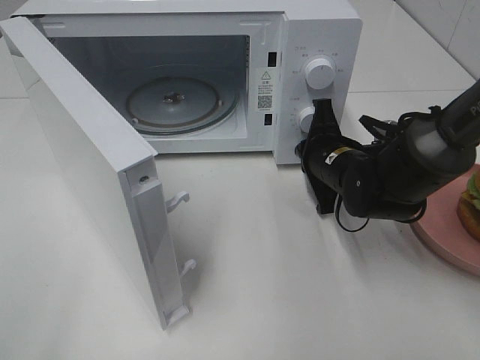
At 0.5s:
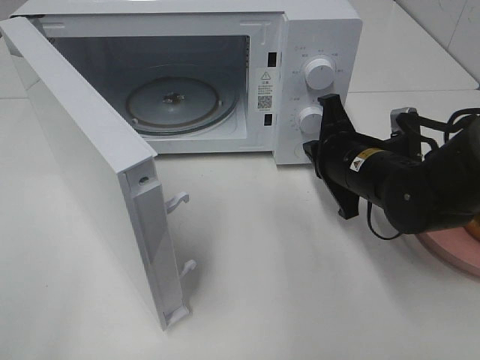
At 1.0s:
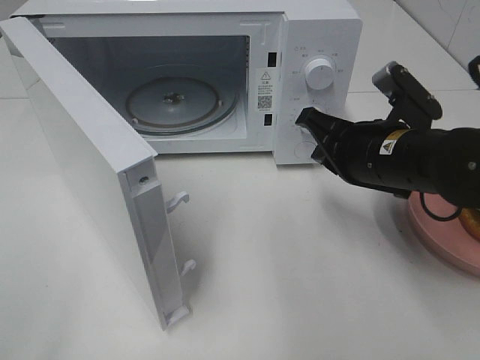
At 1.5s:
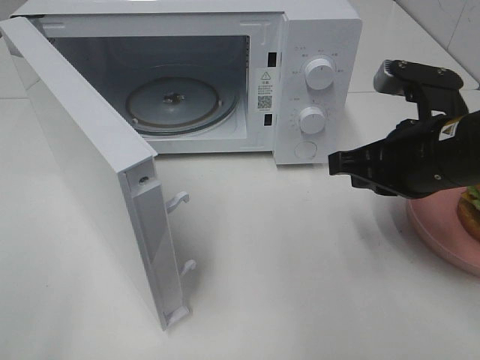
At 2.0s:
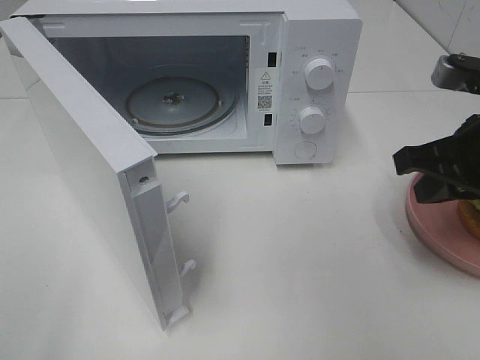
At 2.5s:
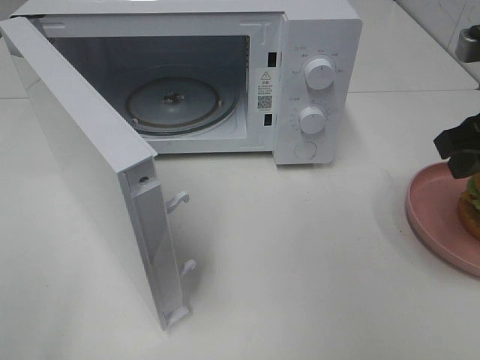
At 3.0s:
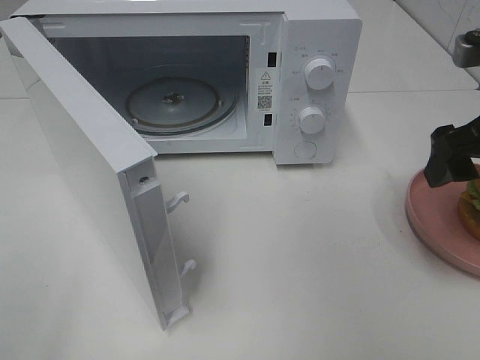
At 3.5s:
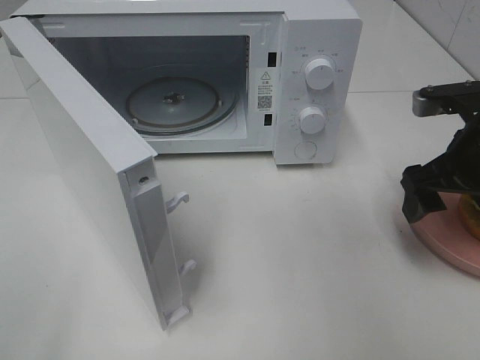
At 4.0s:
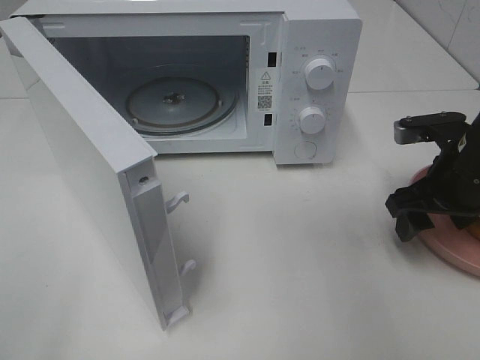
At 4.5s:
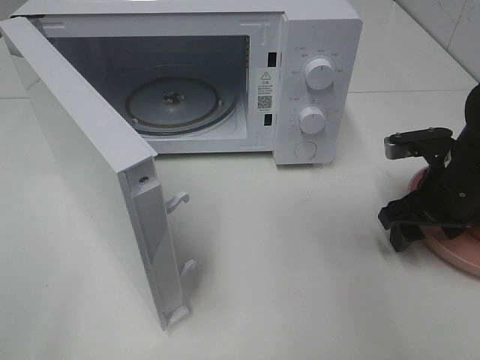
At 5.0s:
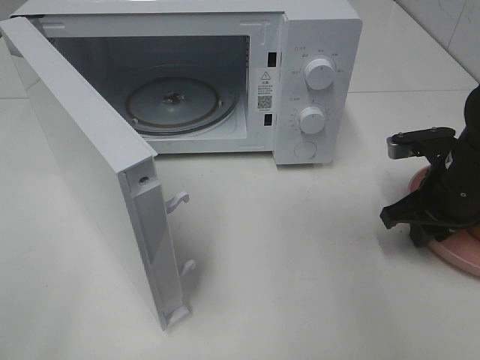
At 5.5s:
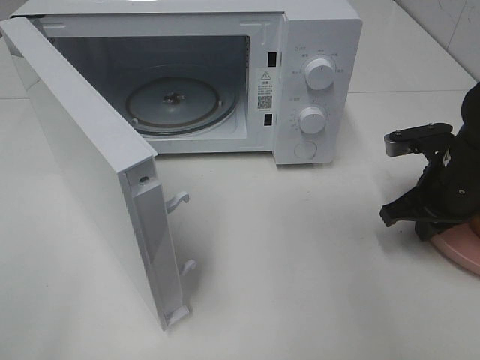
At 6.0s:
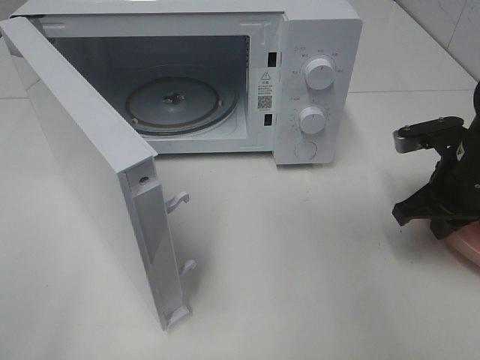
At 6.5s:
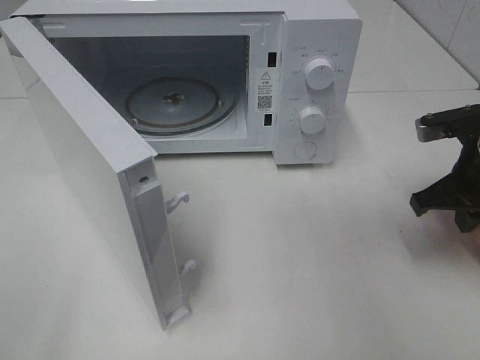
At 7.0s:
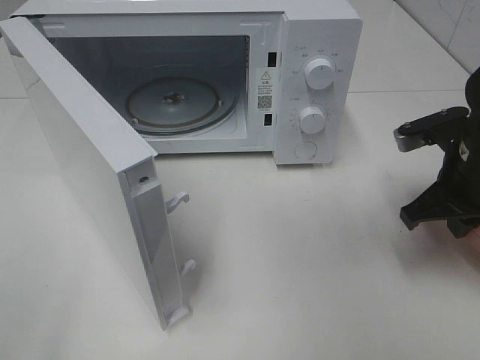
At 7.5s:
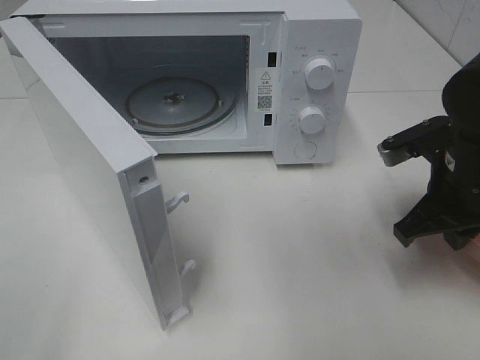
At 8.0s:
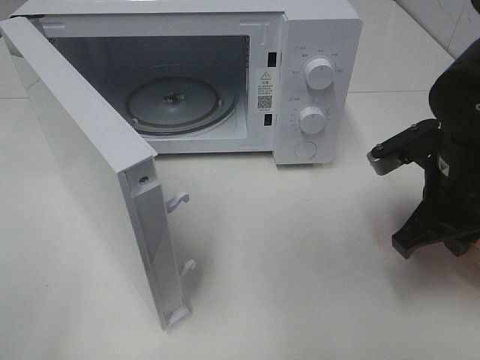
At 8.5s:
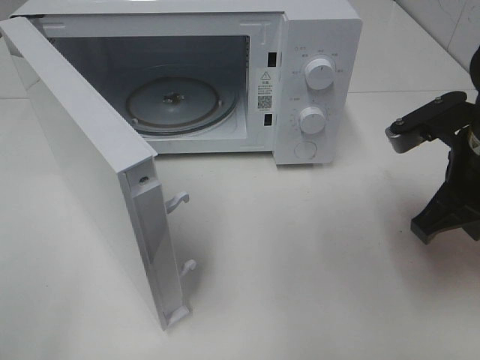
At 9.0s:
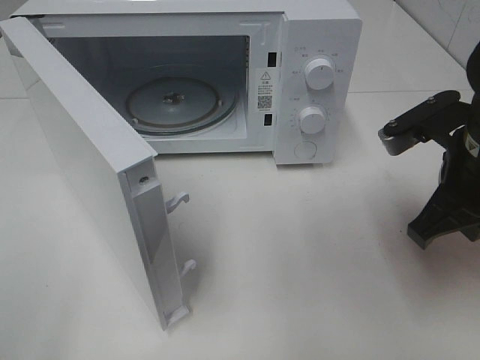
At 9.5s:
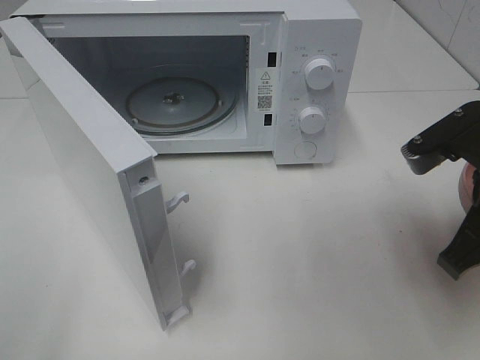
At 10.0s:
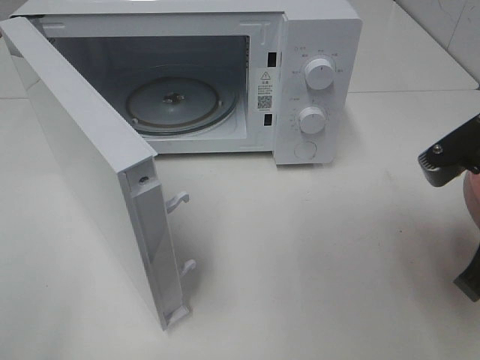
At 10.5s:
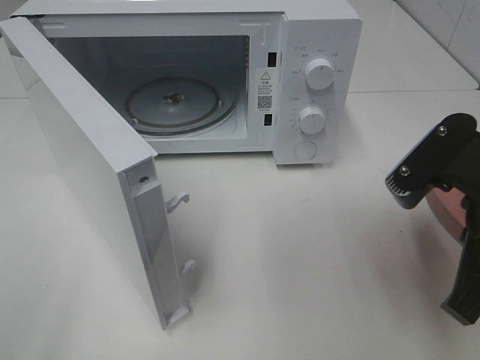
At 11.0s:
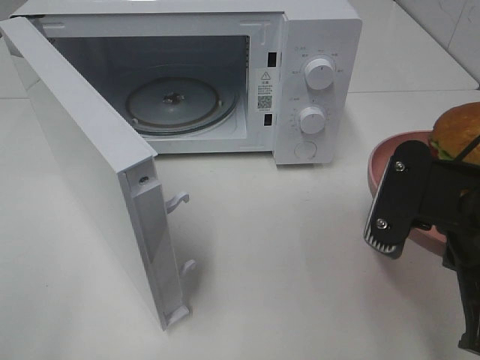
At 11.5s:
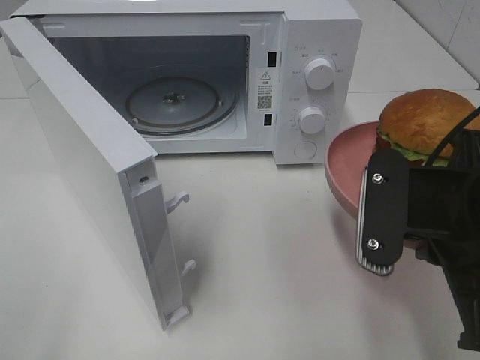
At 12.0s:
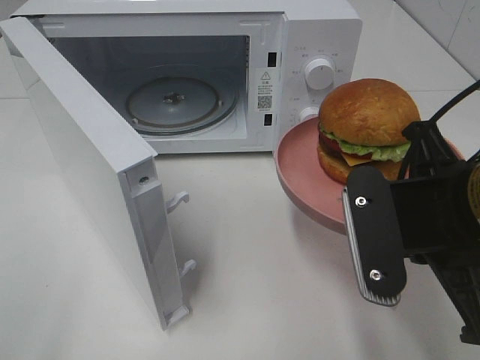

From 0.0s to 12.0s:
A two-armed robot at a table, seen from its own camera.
Task of the whole recording: Heat the burger.
Step, from 0.5s to 5.0s: Right hand: grab the plate with the hamburger.
From 0.0s to 2.0s: The right gripper is displaced upward, backward and to the right by roughly 20 cm.
From 2.0s to 4.0s: The right gripper shifts about 10 cm downward and forward, and opens up.
From 4.0s to 6.0s: The right gripper closes.
From 6.0s to 8.0s: The right gripper is displaced to the left by roughly 5 cm.
From 8.0s to 10.0s: The right gripper travels backward and upward by some 10 cm.
From 10.0s to 12.0s: The right gripper travels to the left by about 5 cm.

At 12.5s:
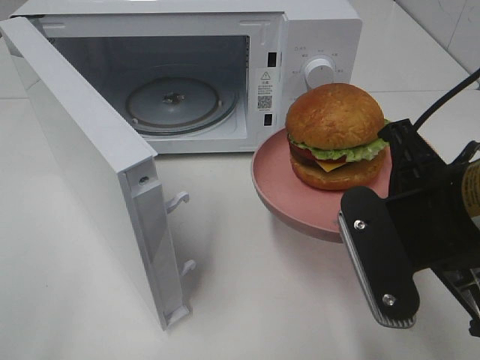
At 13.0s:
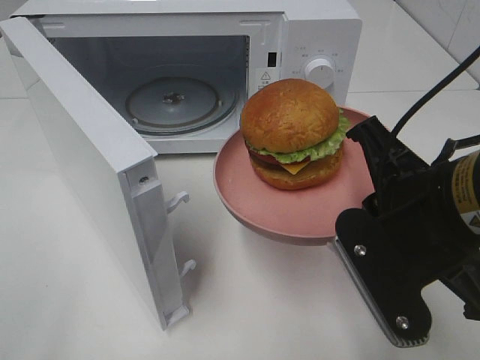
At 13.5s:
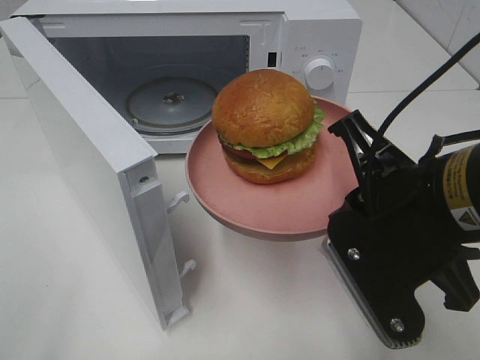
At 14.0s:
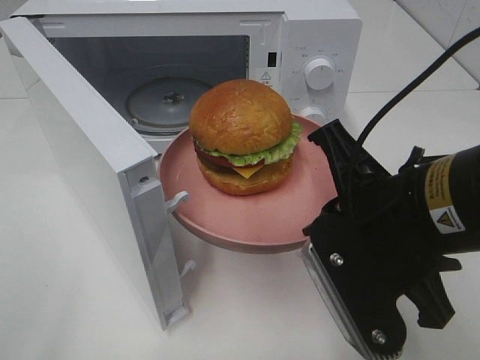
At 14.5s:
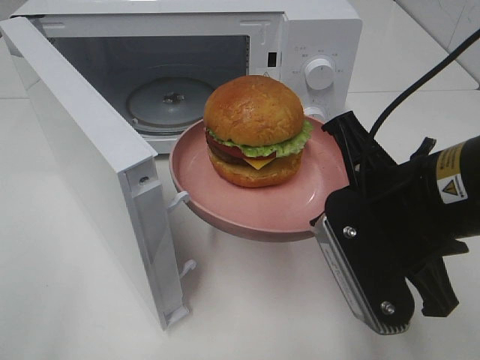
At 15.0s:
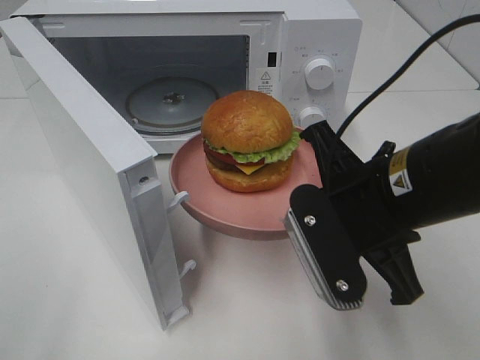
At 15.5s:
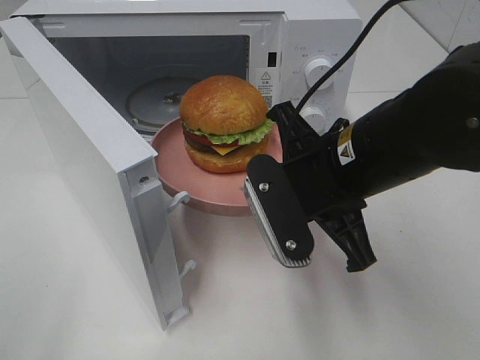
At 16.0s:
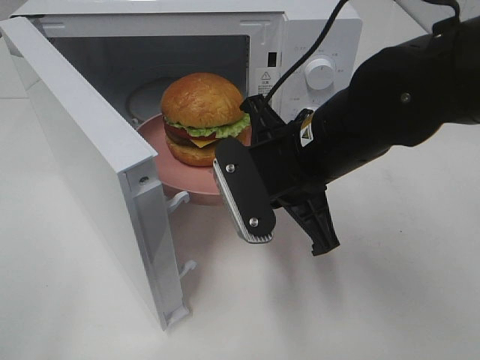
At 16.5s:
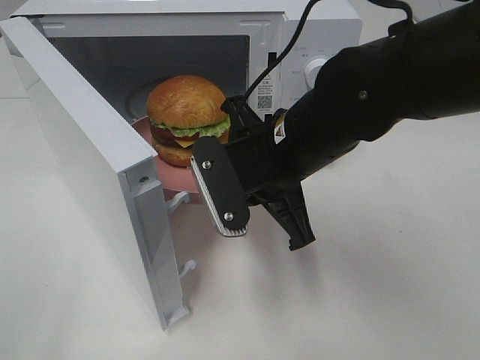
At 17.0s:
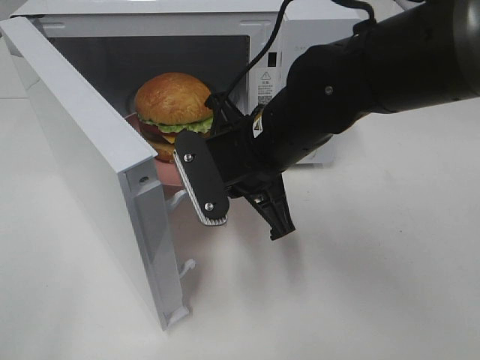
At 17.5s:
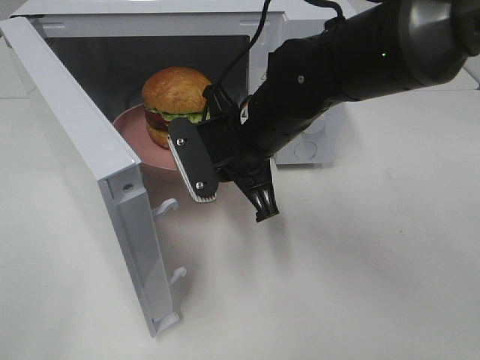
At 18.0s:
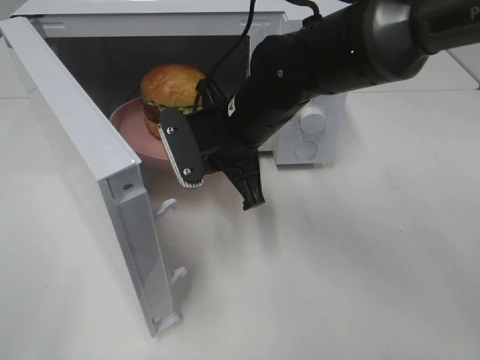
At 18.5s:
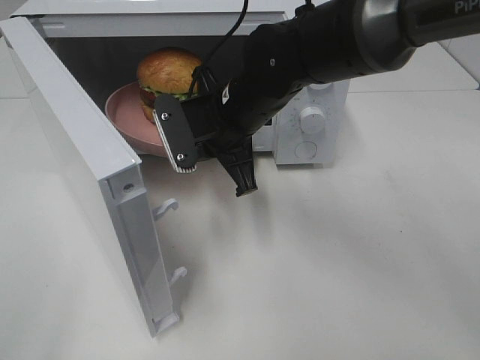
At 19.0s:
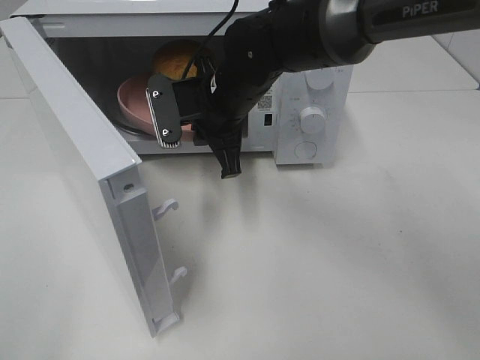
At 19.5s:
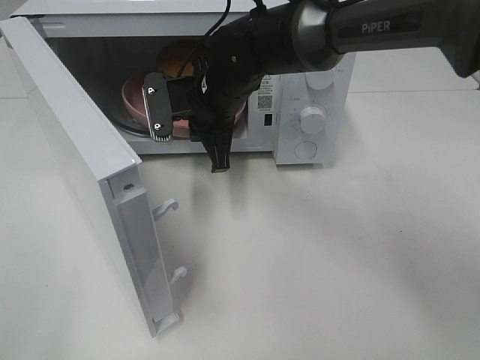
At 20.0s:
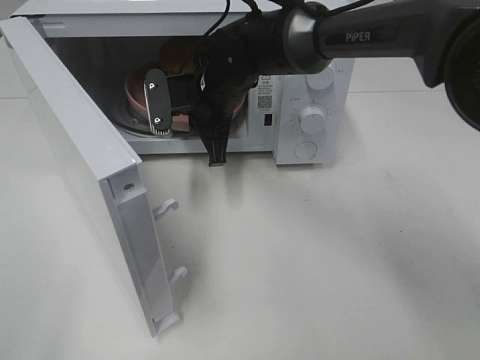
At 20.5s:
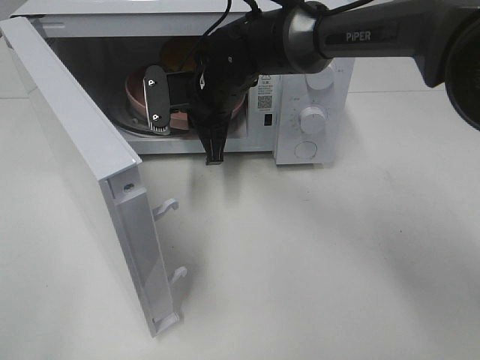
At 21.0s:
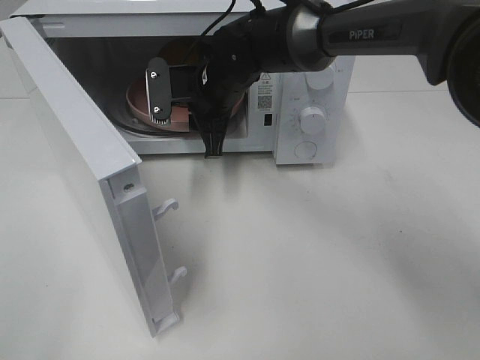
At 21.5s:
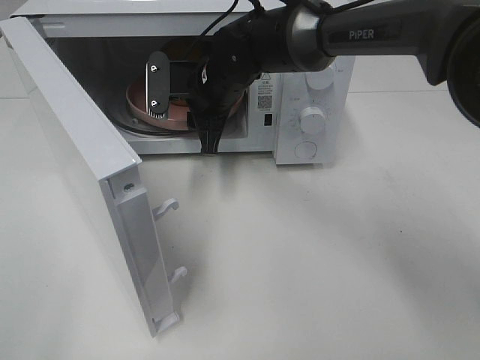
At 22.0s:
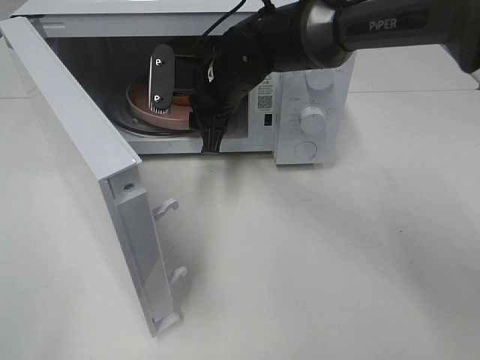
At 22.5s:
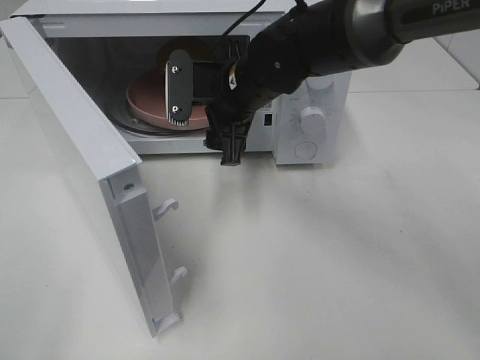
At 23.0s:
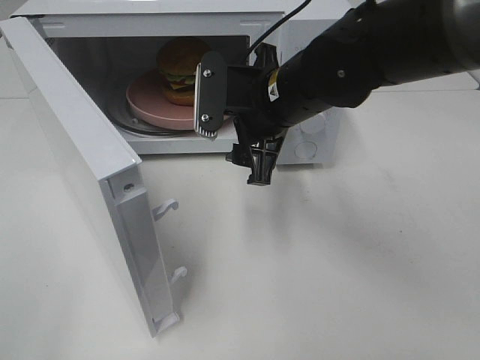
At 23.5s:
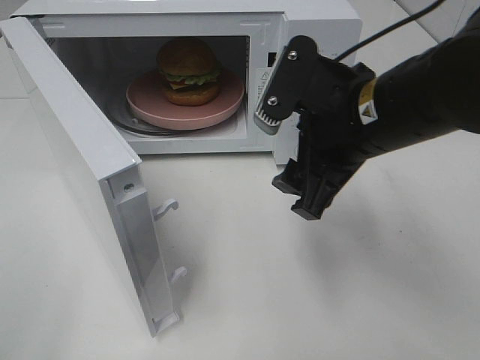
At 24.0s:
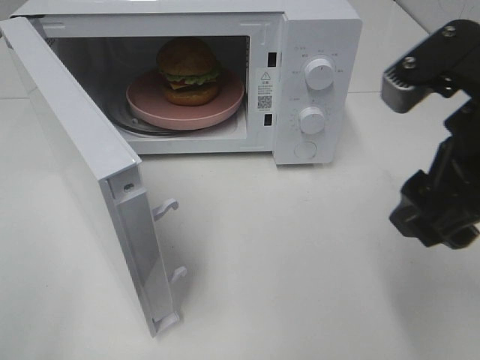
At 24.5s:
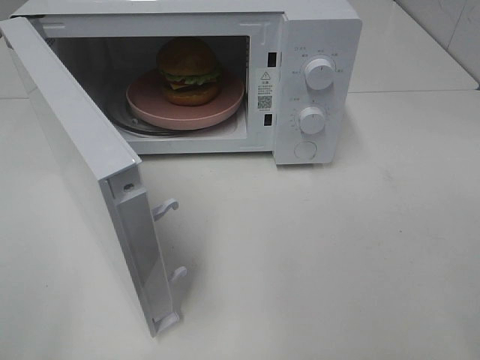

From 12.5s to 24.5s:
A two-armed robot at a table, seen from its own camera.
Task of the whole recording: Heat the burger.
Step, from 12.5s to 20.5s: Right hand: place the plate in the microwave.
From 14.5s to 16.5s: The right gripper shifts about 15 cm forward and to the left.
From 16.5s to 18.5s: The right gripper heads forward, covering roughly 10 cm.
From 18.5s to 20.5s: The right gripper moves forward, some 5 cm.
From 20.5s to 22.5s: The right gripper shifts by roughly 5 cm, and opens up.
From 22.5s to 24.5s: The right gripper shifts about 40 cm backward, to the right and upward.

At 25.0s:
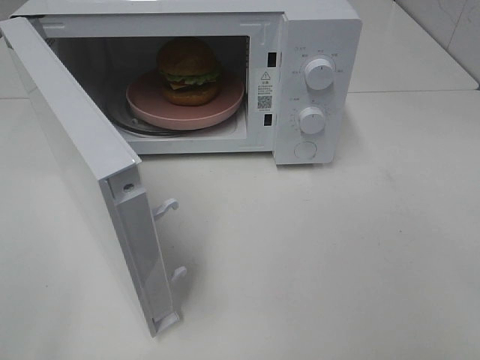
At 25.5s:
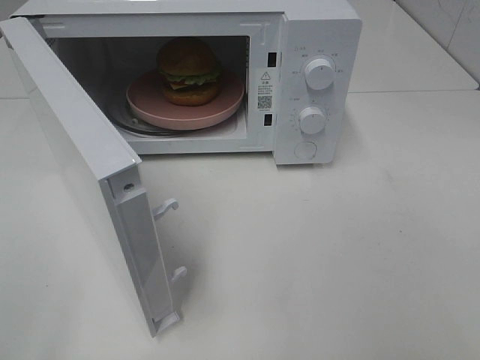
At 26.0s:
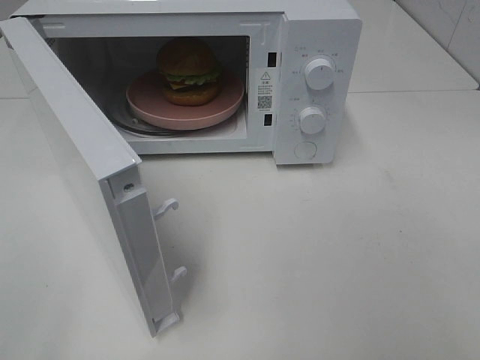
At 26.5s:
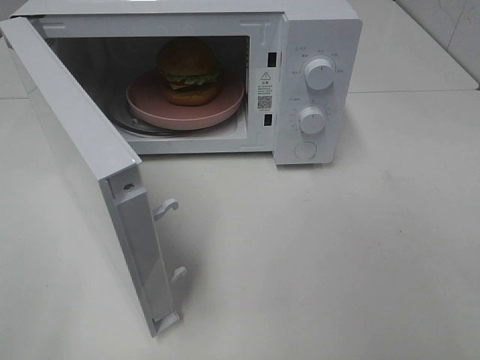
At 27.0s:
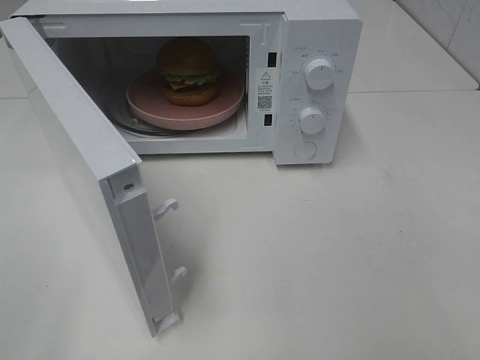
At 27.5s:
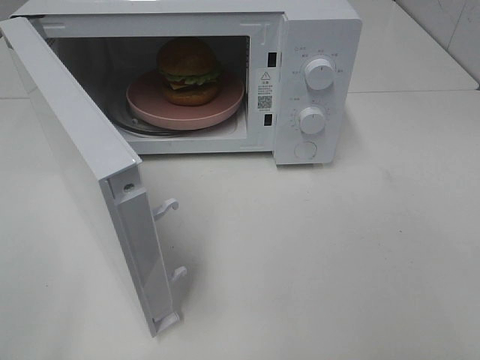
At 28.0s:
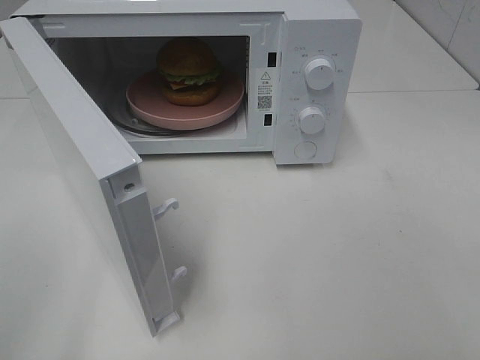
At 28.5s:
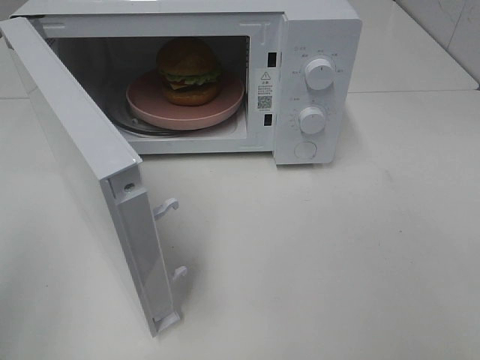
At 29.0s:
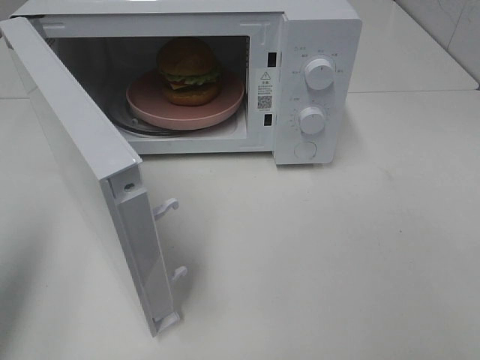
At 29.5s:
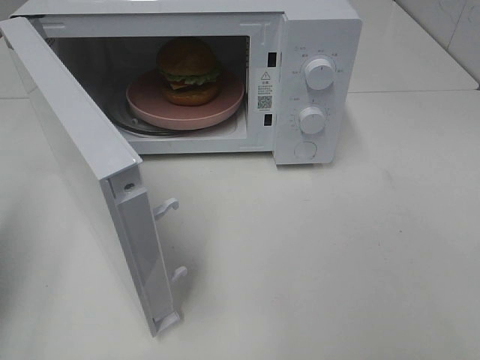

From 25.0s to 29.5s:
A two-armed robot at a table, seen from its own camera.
Task of the whole recording: Heat the burger.
From 27.0s to 29.5s: The left gripper moves forward, approximately 20 cm, and closes.
